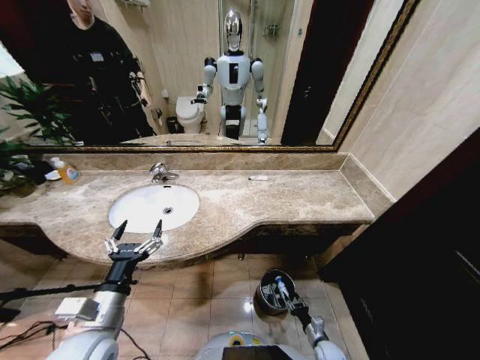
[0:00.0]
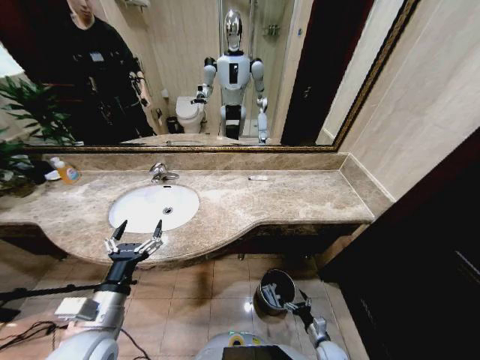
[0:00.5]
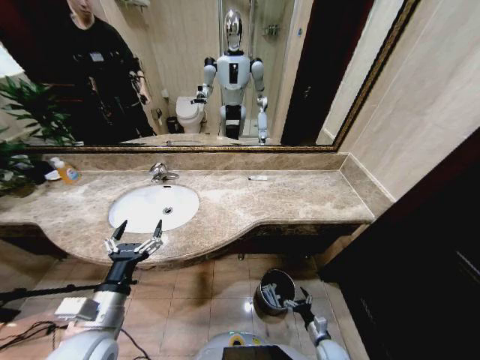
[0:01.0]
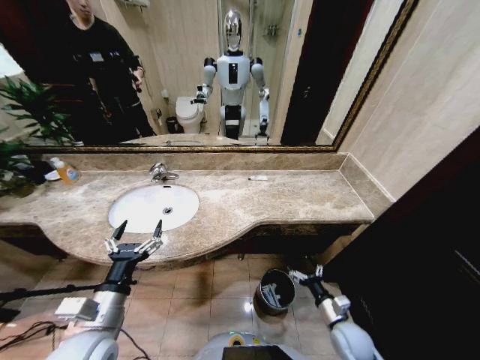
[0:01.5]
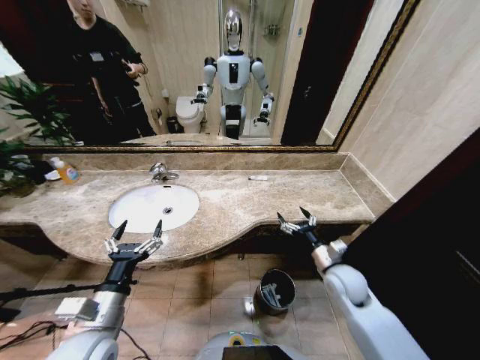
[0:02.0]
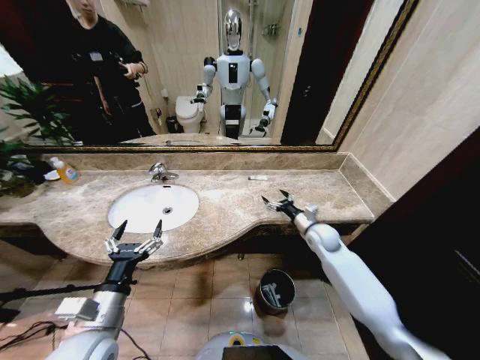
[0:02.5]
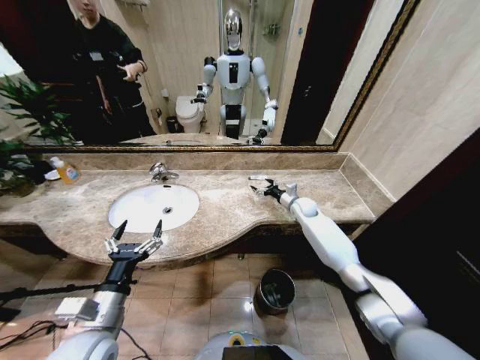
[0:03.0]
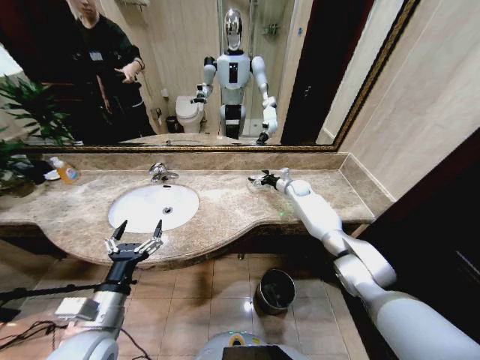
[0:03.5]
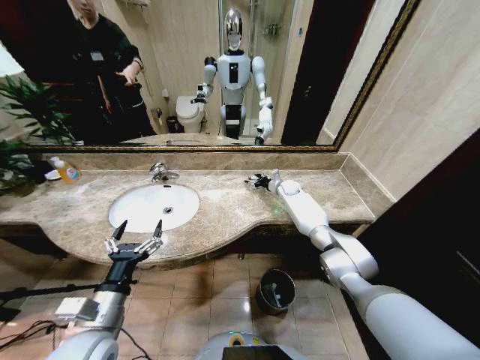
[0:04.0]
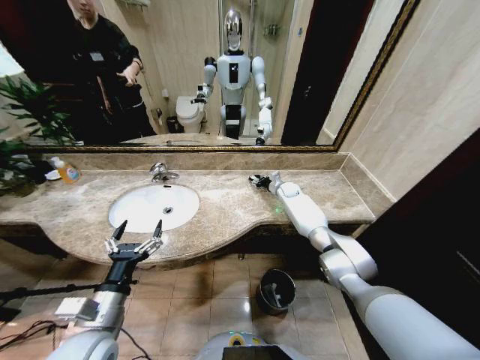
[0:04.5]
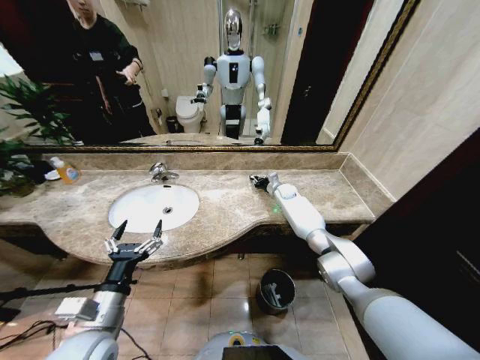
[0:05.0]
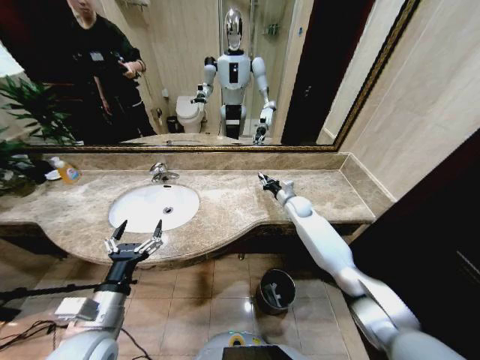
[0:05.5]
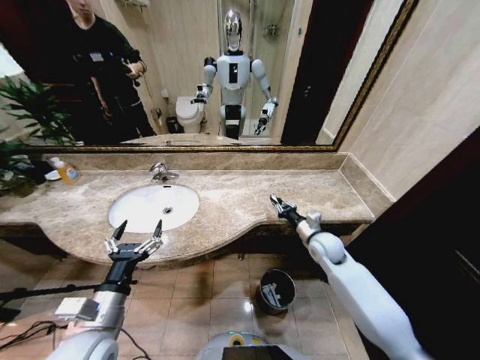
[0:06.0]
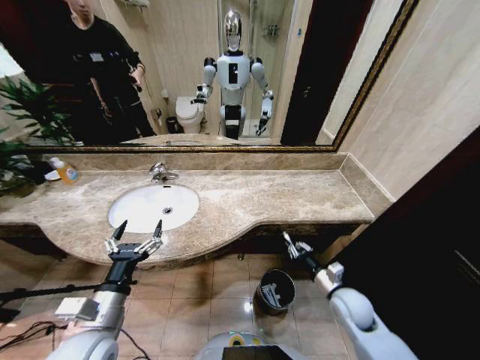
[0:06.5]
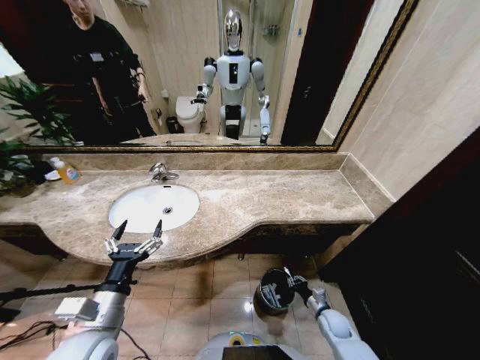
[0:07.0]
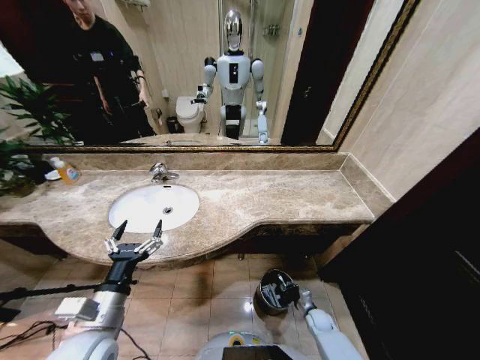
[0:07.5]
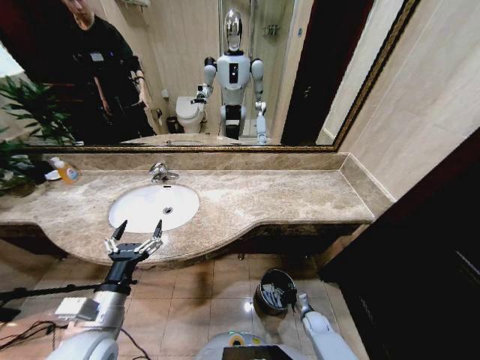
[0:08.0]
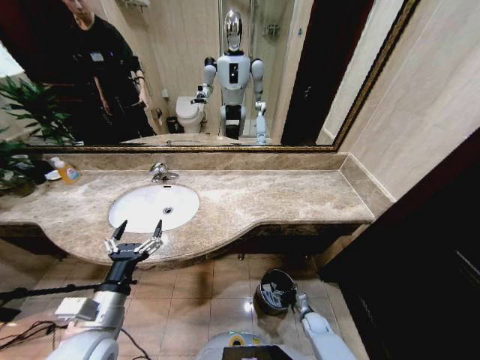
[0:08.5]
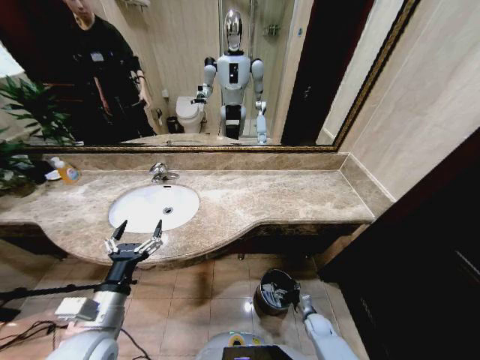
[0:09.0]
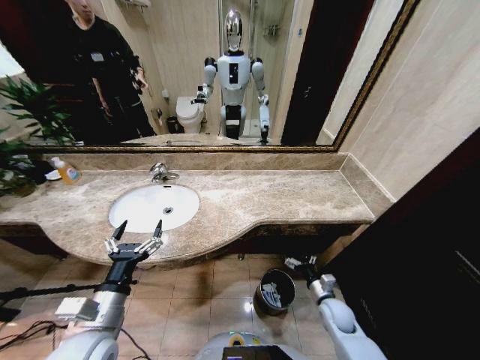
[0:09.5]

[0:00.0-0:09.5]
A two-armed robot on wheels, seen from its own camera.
Task of the whole recording: Pick up the trash from the sink and place it in the trash bin.
0:00.0 to 0:02.0: The right gripper heads upward, covering about 35 cm, and opens up.
0:02.0 to 0:04.0: The right gripper heads forward, covering roughly 40 cm.
0:04.0 to 0:05.5: The right gripper shifts approximately 10 cm backward, and closes up.
0:05.5 to 0:07.5: The right gripper shifts roughly 50 cm downward and backward.
0:07.5 to 0:09.5: The right gripper heads upward, covering roughly 15 cm, and opens its fingers.

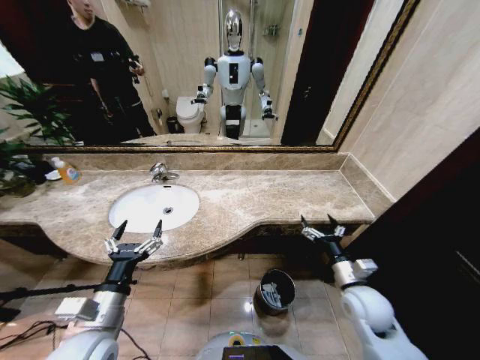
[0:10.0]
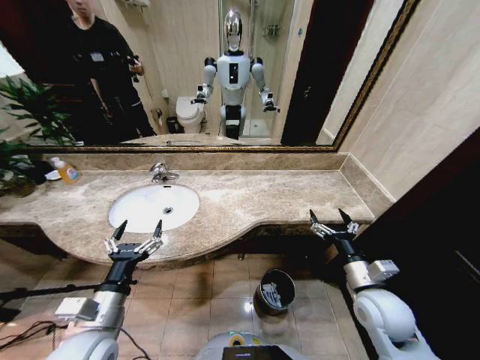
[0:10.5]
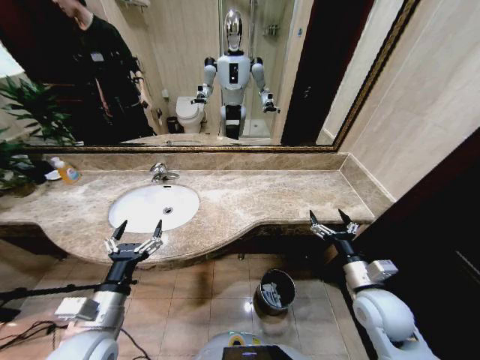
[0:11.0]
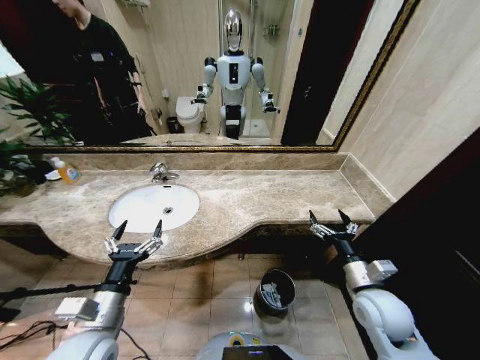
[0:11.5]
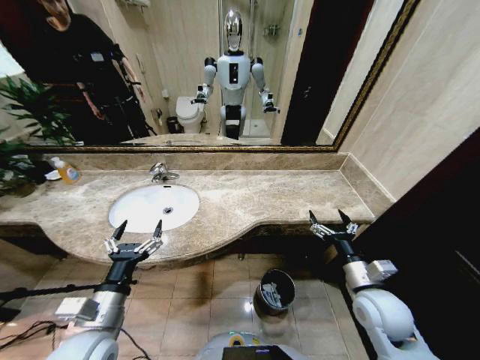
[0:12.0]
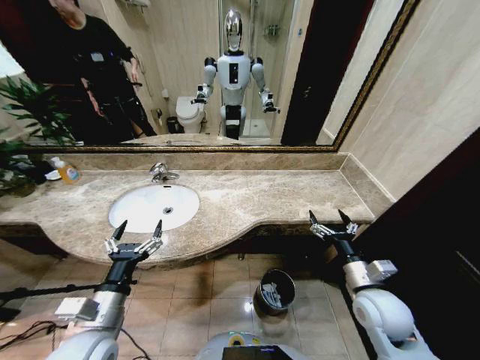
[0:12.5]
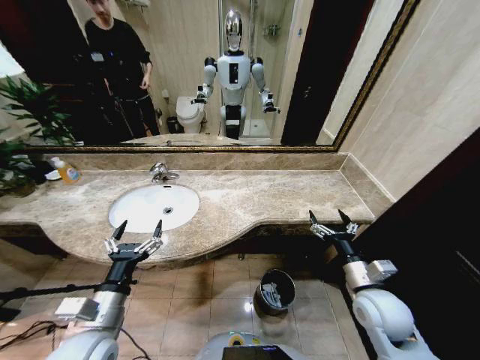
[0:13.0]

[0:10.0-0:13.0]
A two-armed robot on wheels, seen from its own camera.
Task of the whole recording: Pick up the trash from the sink and place it in the trash bin.
0:10.0 to 0:11.5: The grippers make only small movements.
0:11.5 to 0:13.0: Both grippers stay about where they are.

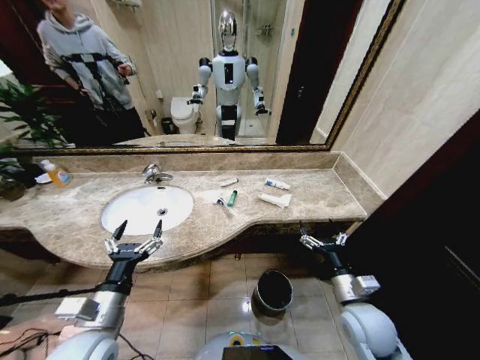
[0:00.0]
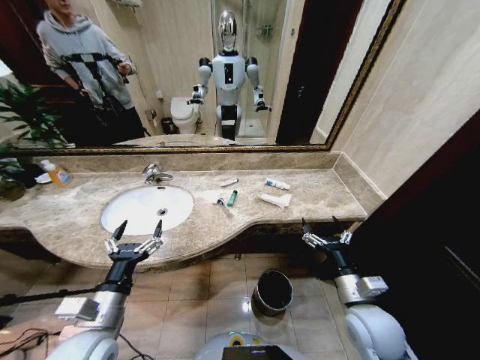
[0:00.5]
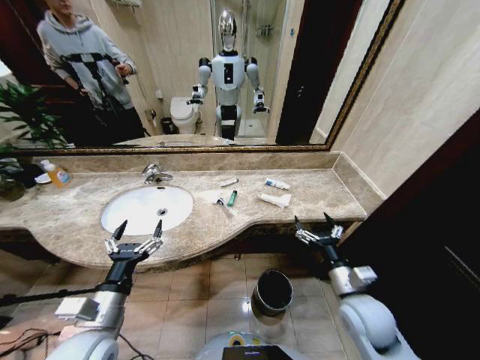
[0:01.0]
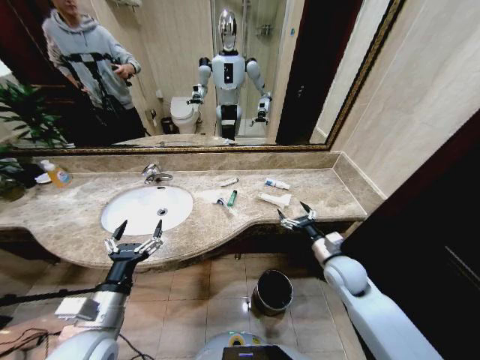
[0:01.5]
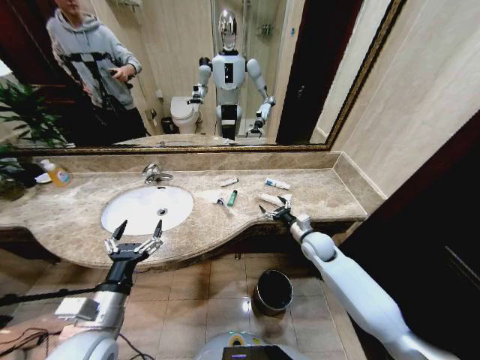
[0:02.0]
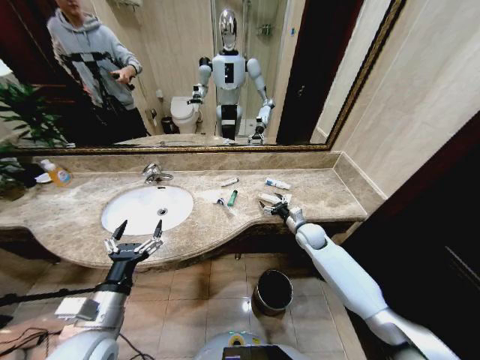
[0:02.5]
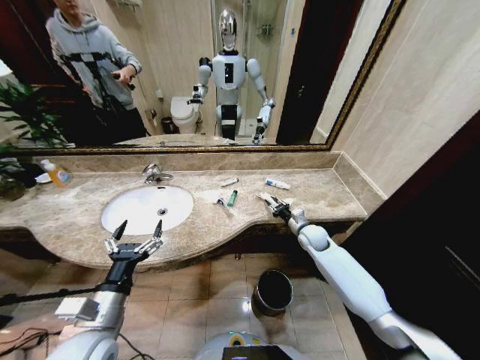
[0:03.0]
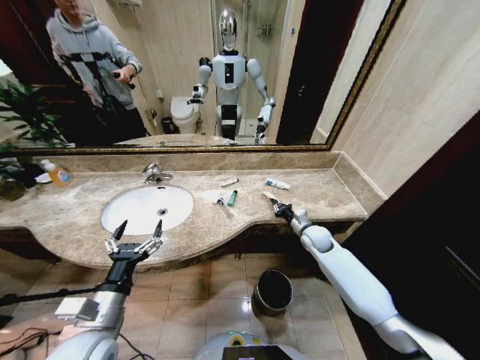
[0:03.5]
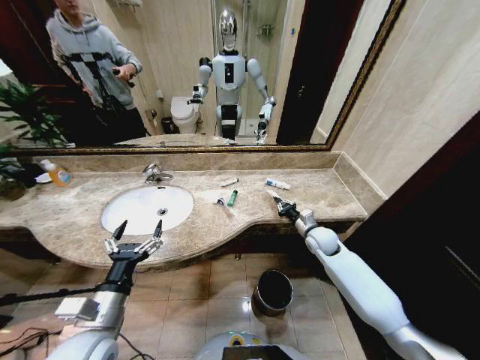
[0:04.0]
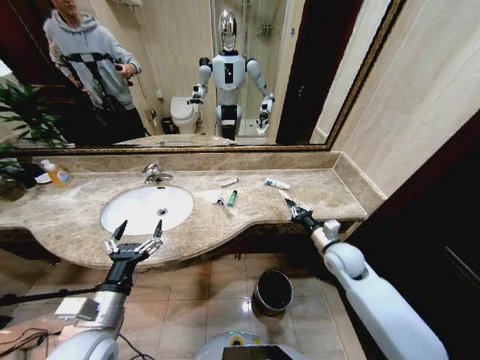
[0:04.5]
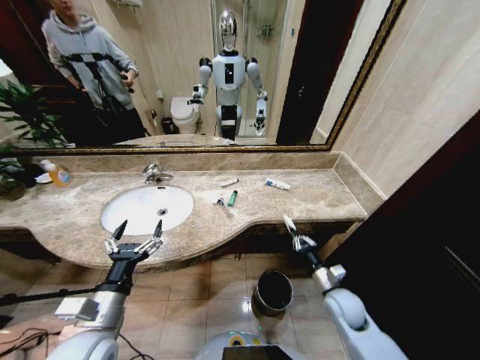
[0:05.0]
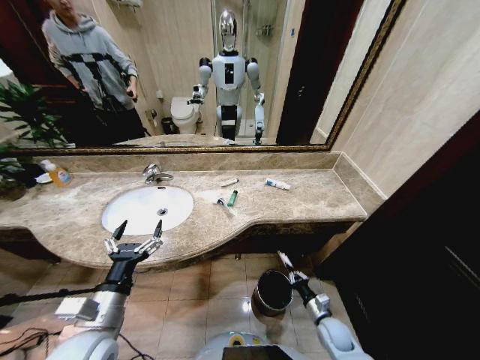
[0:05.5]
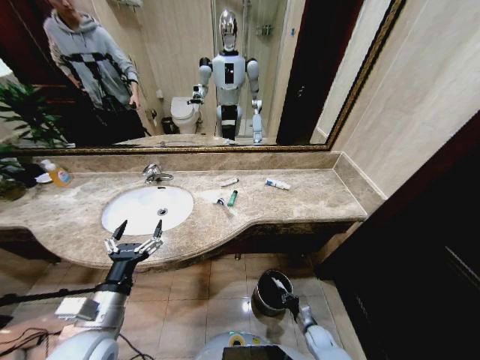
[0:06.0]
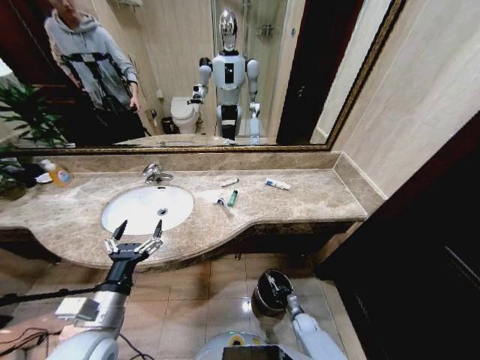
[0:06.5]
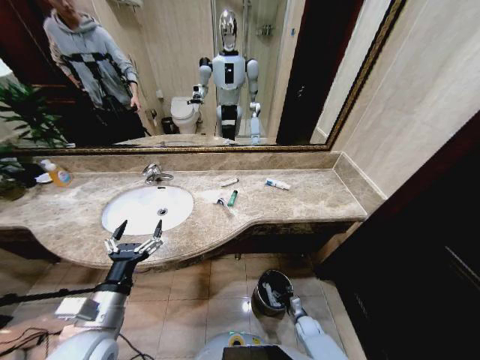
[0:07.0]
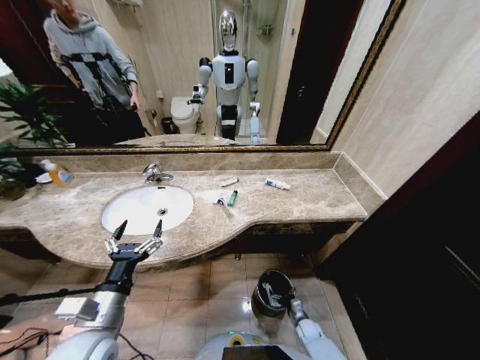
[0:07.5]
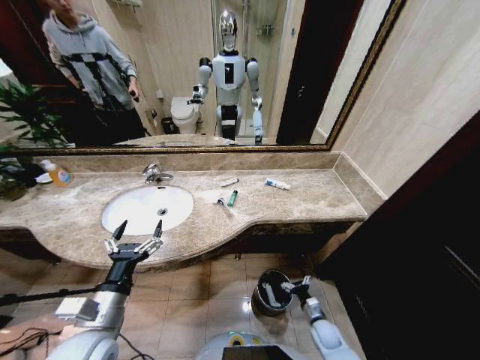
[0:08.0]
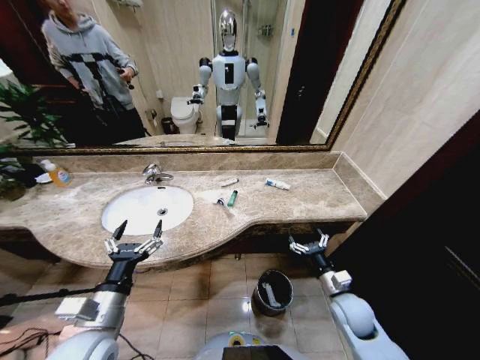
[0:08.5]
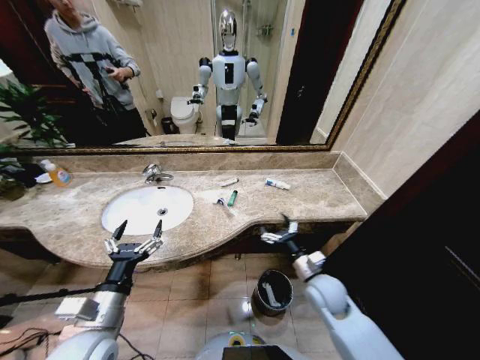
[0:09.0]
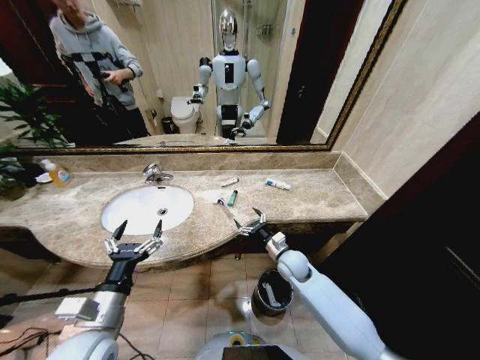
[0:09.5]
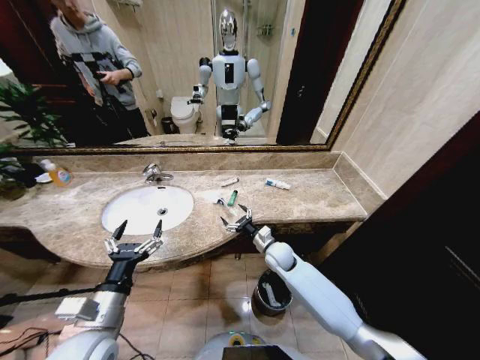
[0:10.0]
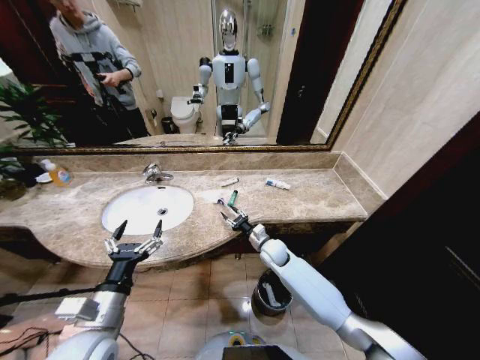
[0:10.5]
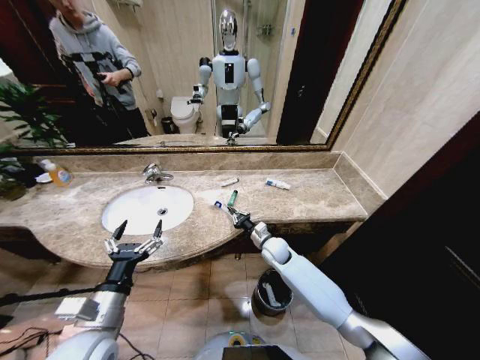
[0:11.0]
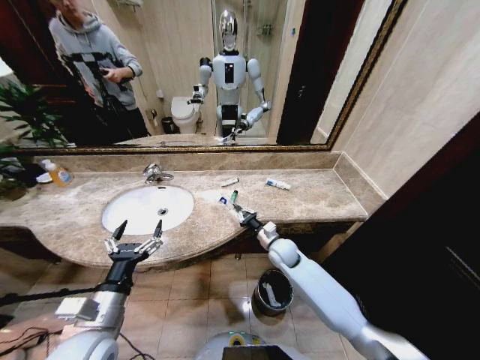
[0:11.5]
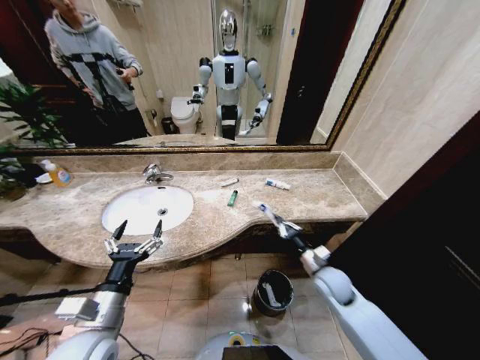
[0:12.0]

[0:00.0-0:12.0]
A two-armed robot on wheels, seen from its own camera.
Task of the whole recording: Pick up the trash from the sink and place it in the trash bin.
0:02.0 to 0:04.0: The right gripper closes.
0:04.0 to 0:06.0: The right gripper travels downward and backward by roughly 40 cm.
0:06.0 to 0:08.0: The right gripper heads upward, covering about 10 cm, and opens its fingers.
0:08.0 to 0:10.0: The right gripper shifts about 30 cm upward, forward and to the left.
0:10.0 to 0:12.0: The right gripper travels to the right and backward by approximately 20 cm, and closes up.

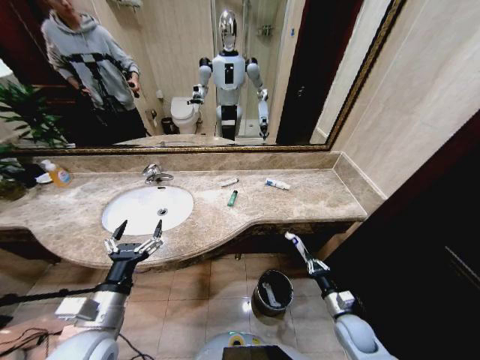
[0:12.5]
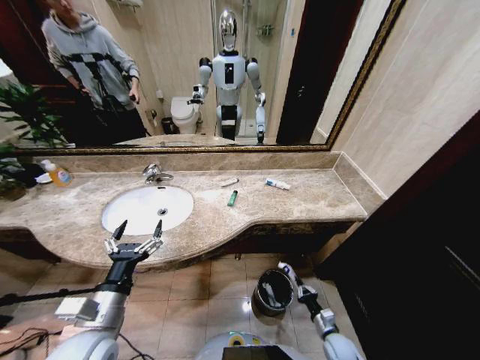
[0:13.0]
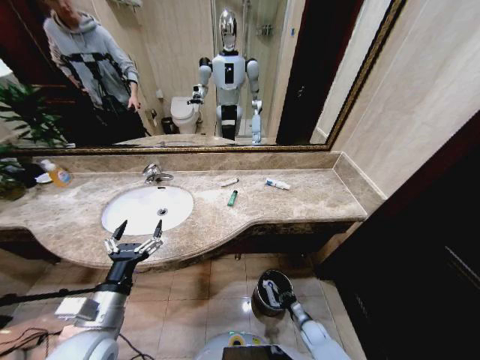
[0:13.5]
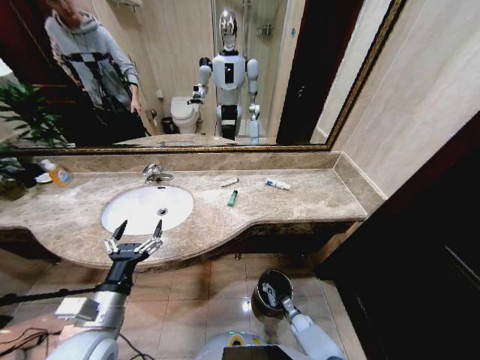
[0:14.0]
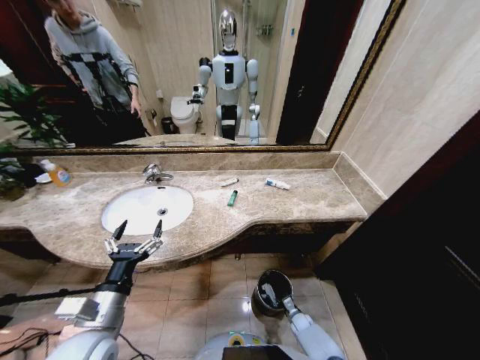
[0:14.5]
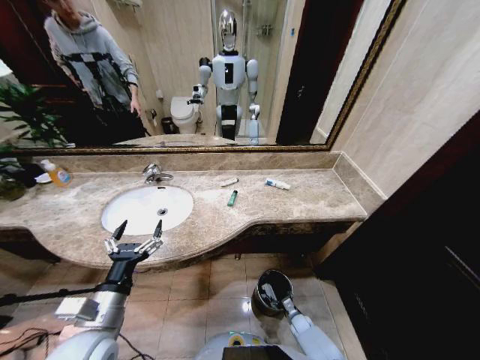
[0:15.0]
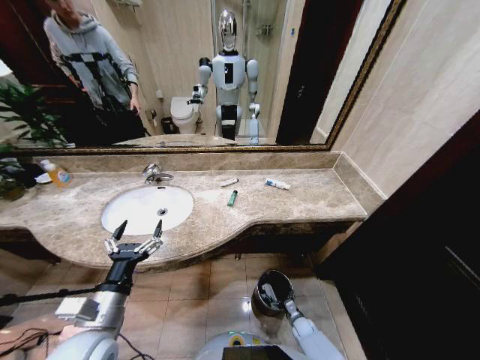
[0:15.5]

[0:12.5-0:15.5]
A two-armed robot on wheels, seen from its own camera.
Task of the whole recording: Pick up the trash from the sink and place it in the trash bin.
0:12.5 to 0:14.0: The right gripper is displaced downward by some 20 cm.
0:14.0 to 0:15.5: The right gripper opens its fingers.
